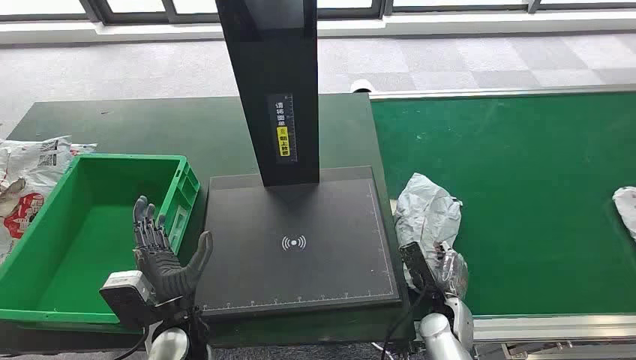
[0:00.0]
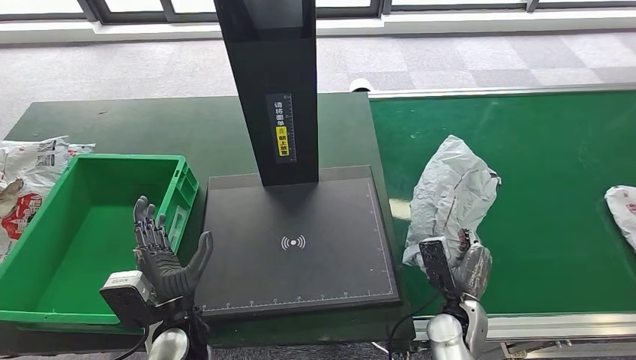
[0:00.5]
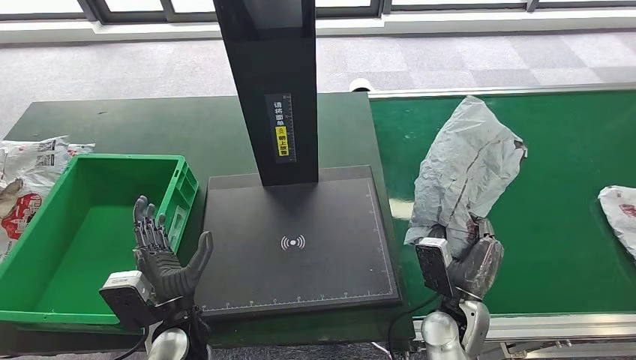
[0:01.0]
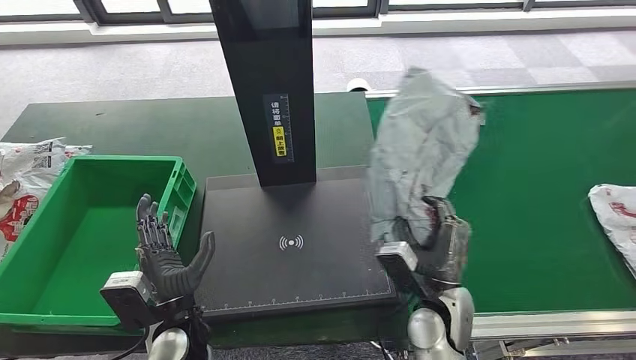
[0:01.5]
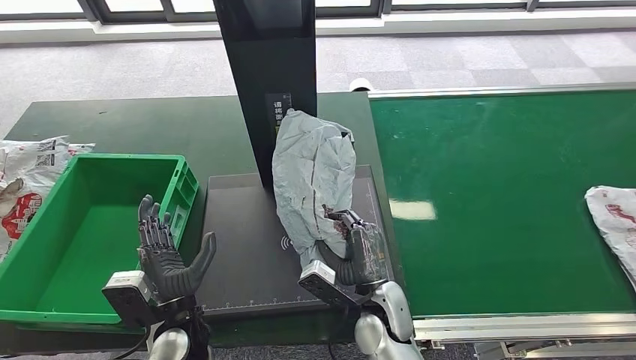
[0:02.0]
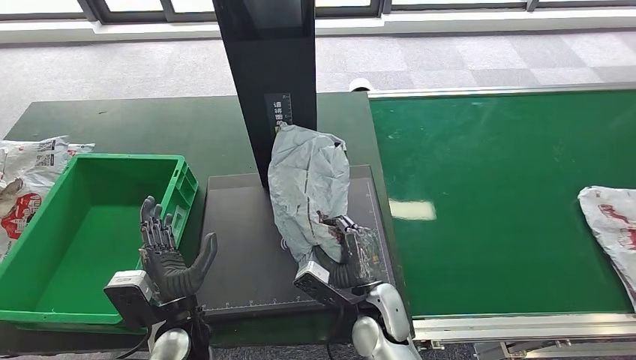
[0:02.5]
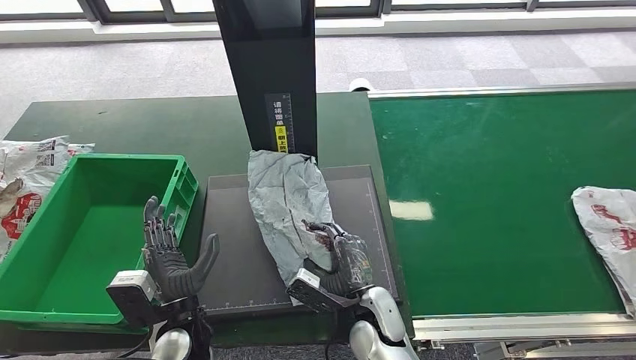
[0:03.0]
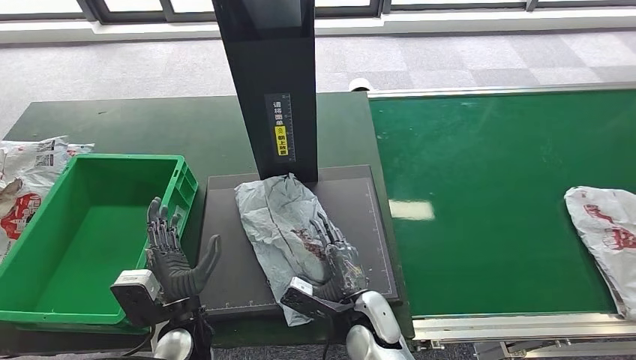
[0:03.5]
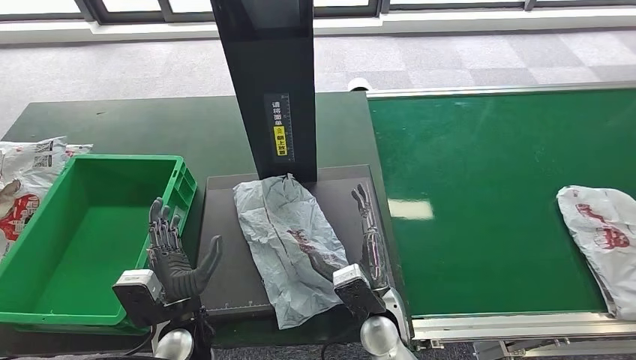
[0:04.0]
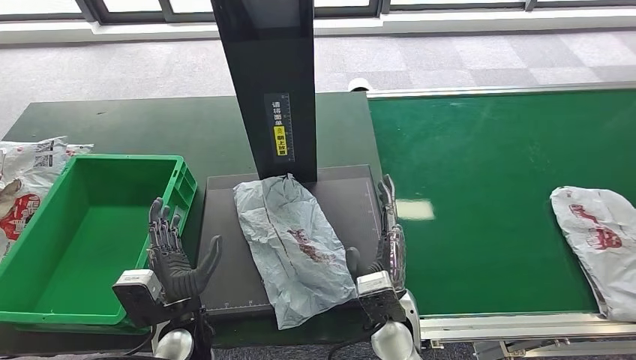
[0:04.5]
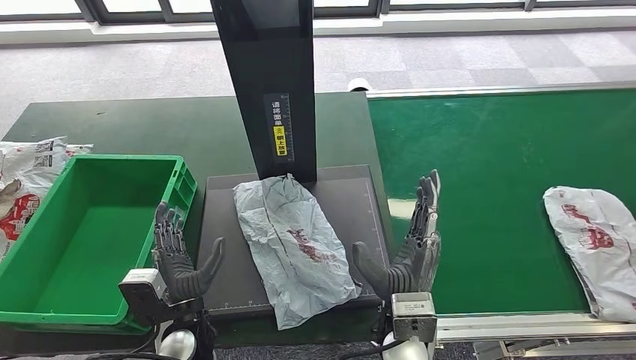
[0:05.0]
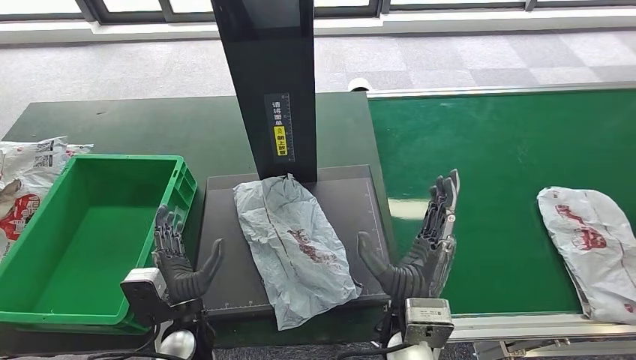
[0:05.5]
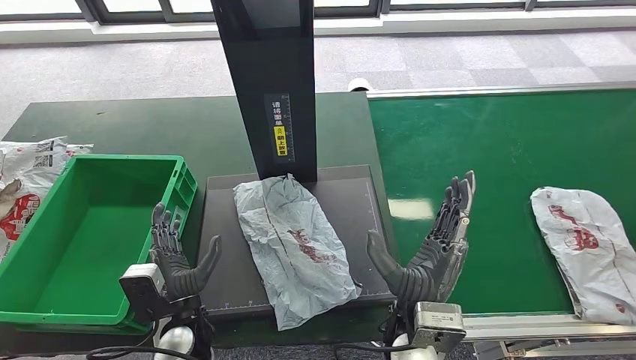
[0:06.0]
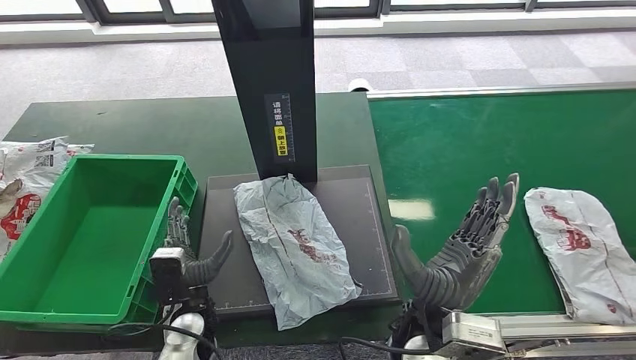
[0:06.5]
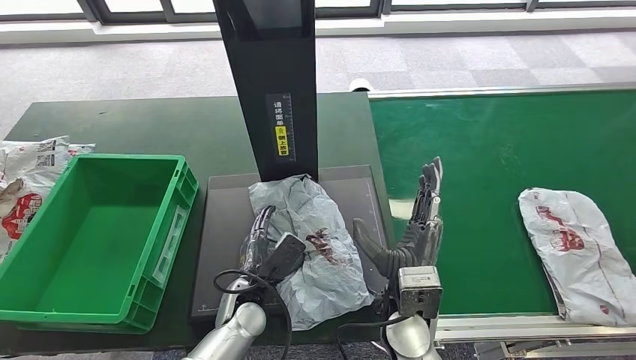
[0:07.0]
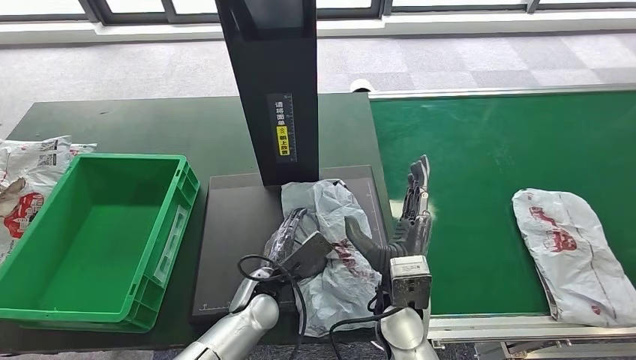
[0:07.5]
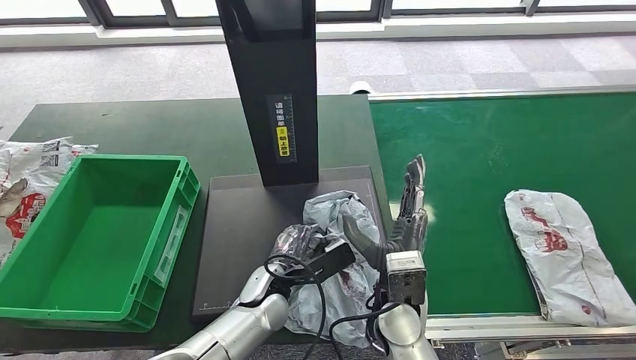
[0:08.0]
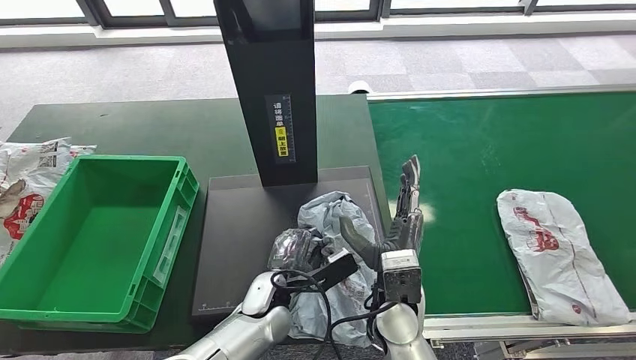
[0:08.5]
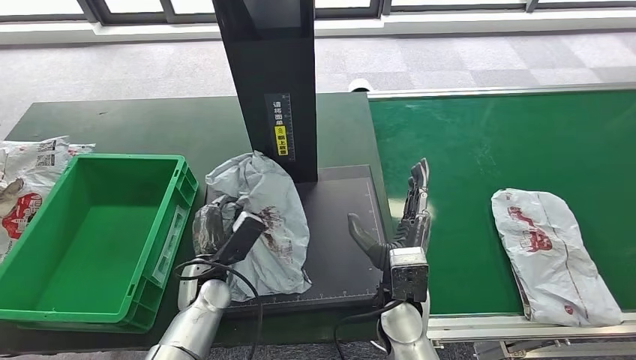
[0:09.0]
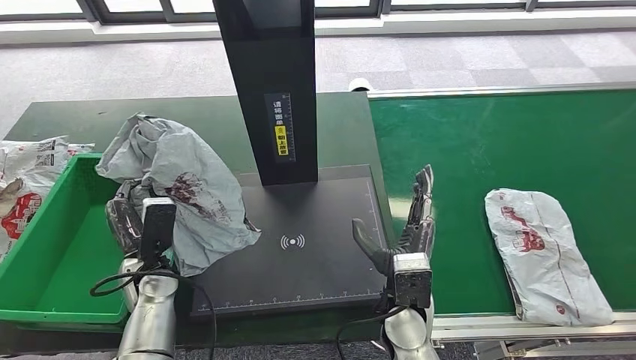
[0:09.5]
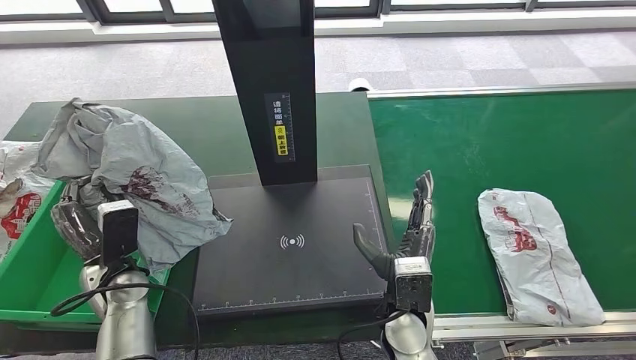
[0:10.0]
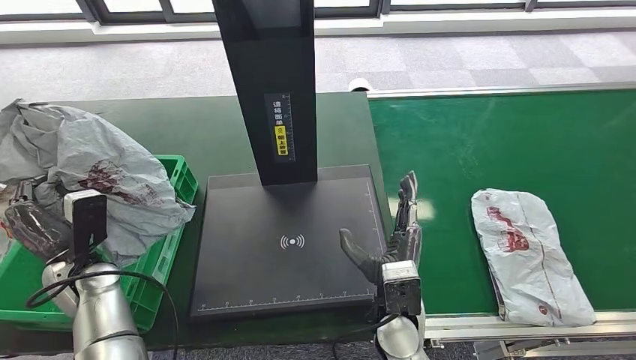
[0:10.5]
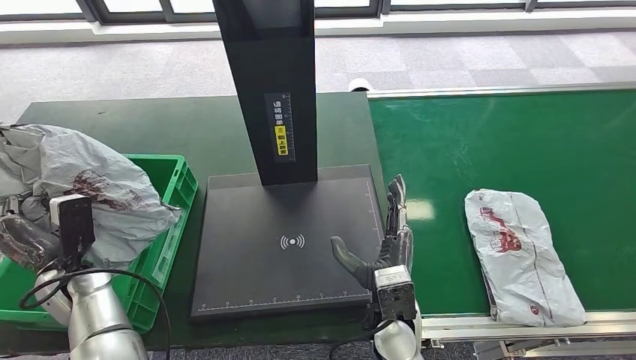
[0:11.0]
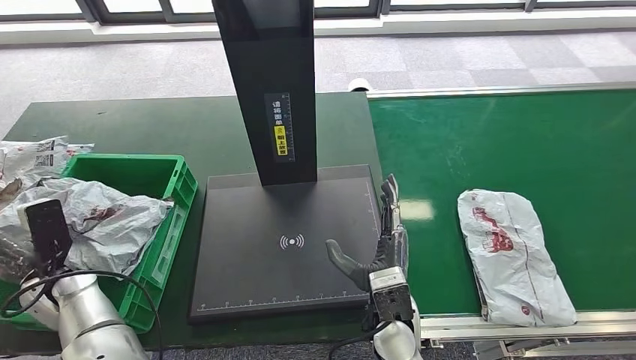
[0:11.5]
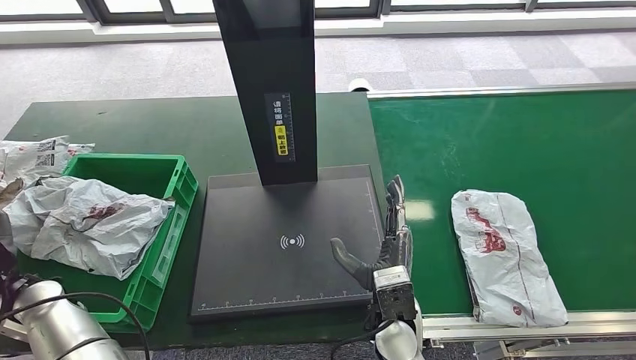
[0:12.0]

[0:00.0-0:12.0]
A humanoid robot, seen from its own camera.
Step, 0:00.0 to 0:01.0: Take the parcel off the conveyor belt.
Step, 0:02.0 to 0:04.0: Place the parcel onto the inbound machine.
Step, 0:04.5 to 0:09.0: Pick up the parcel from the inbound machine.
0:04.0 to 0:06.0: The right hand is displaced upward by approximately 10 cm.

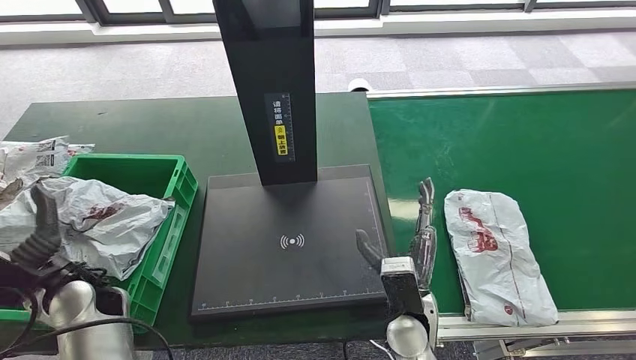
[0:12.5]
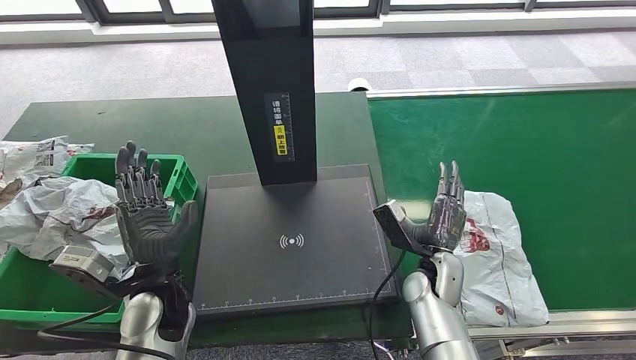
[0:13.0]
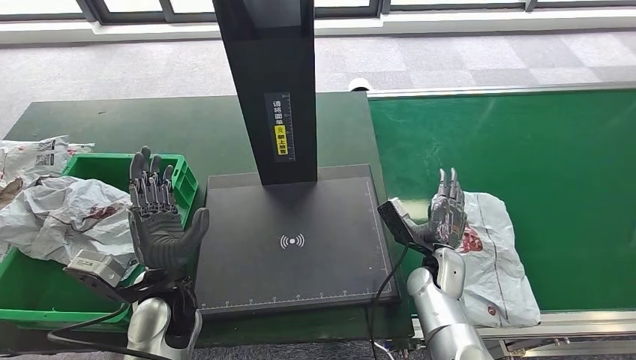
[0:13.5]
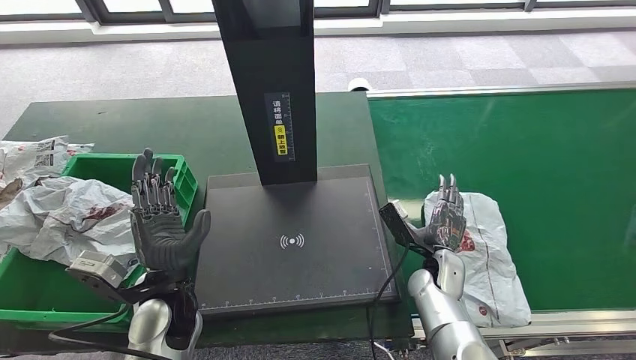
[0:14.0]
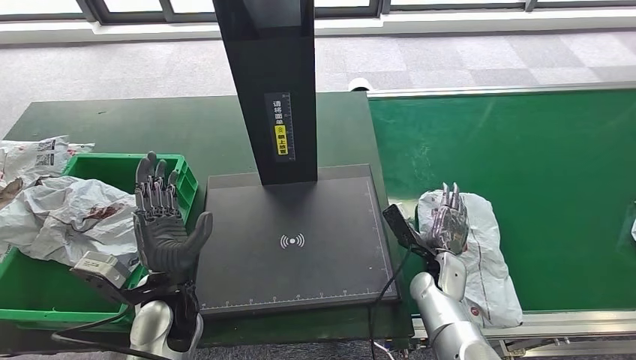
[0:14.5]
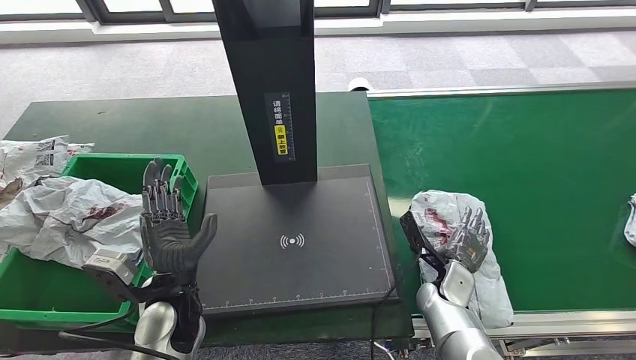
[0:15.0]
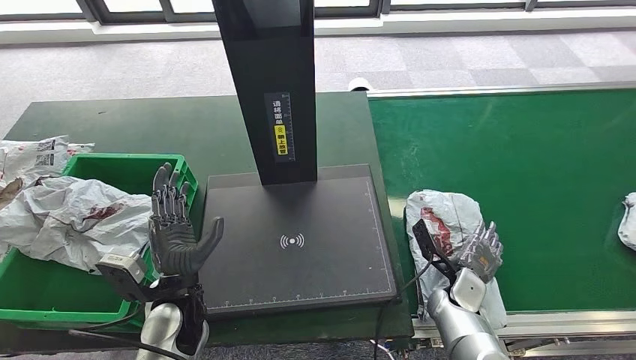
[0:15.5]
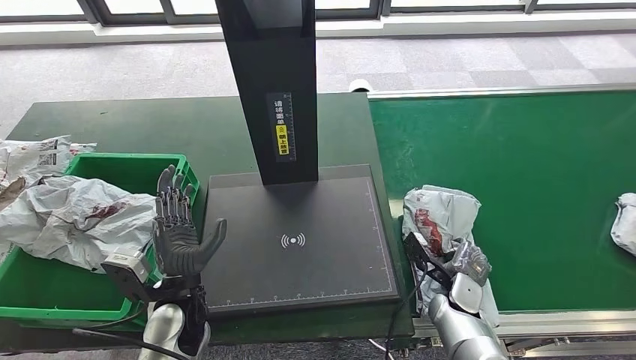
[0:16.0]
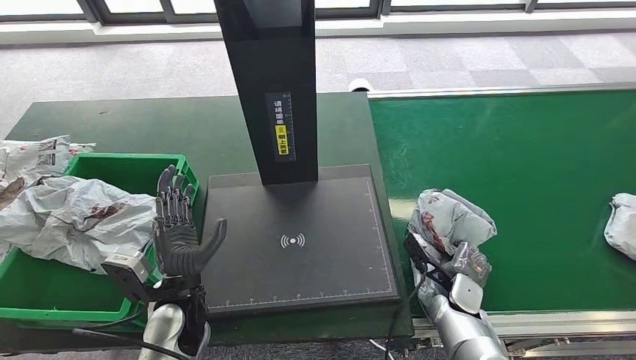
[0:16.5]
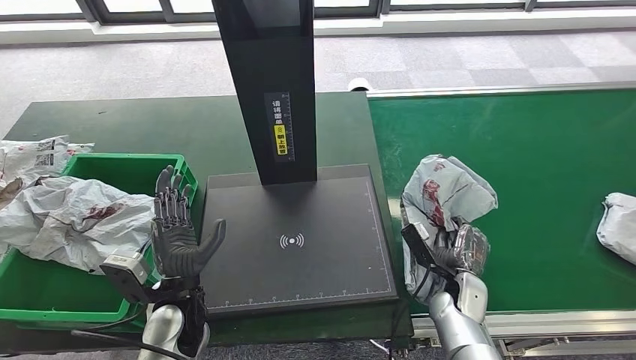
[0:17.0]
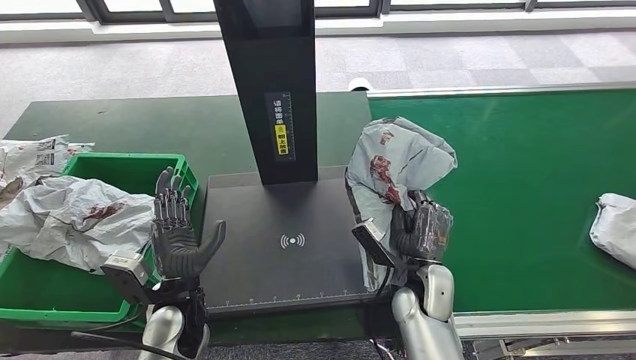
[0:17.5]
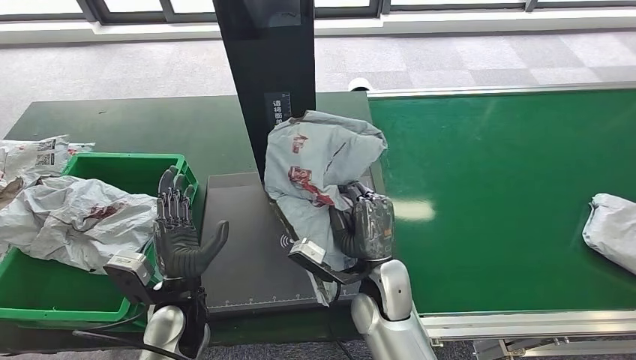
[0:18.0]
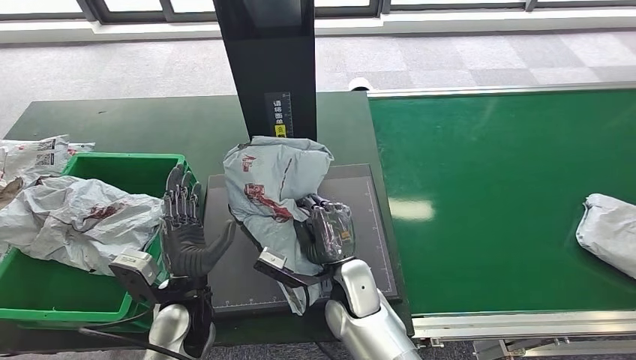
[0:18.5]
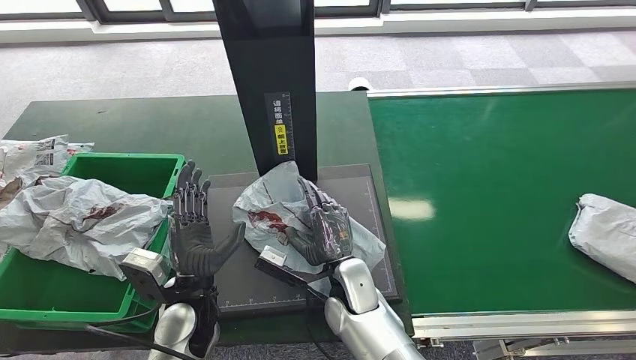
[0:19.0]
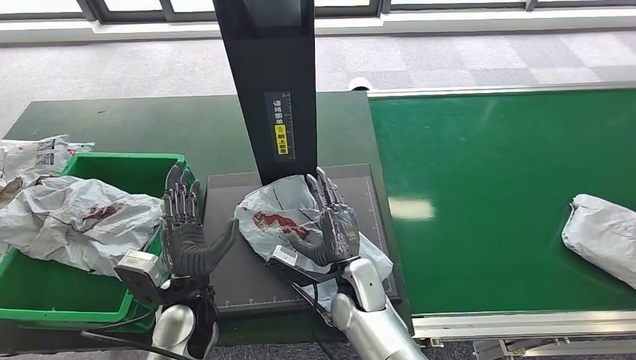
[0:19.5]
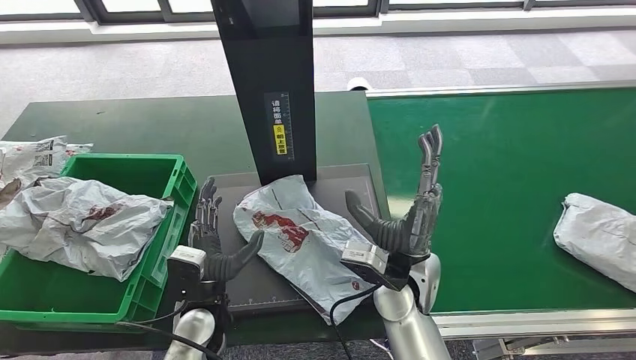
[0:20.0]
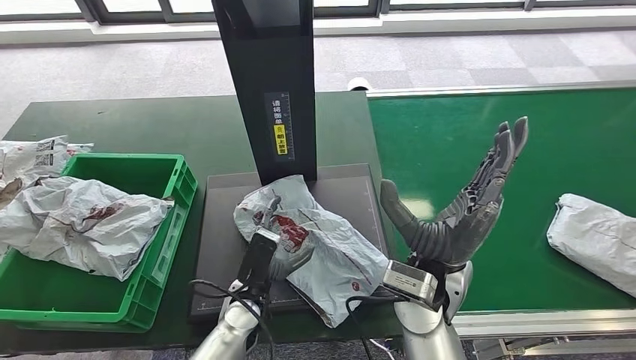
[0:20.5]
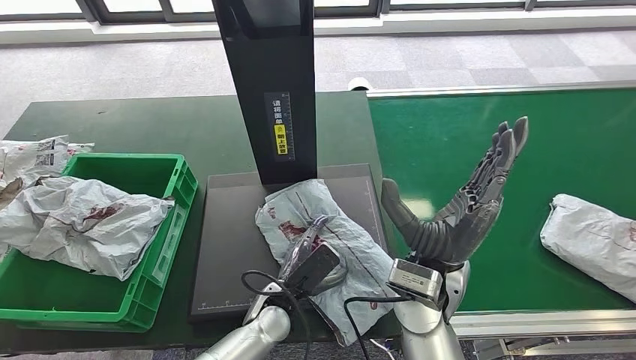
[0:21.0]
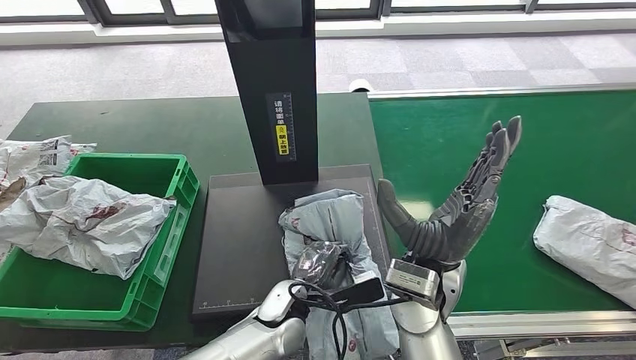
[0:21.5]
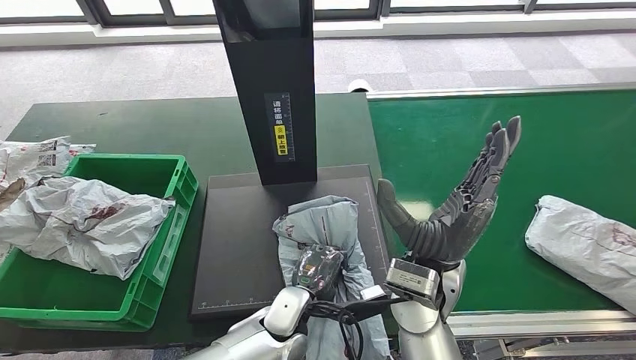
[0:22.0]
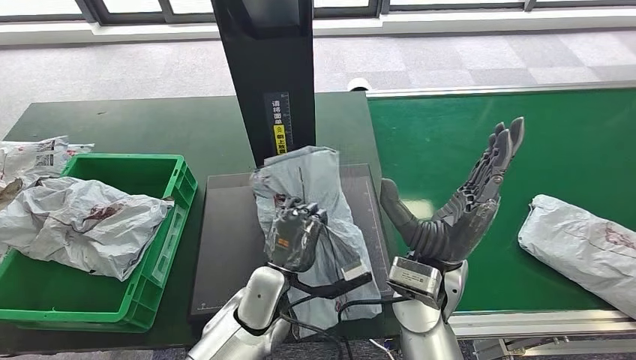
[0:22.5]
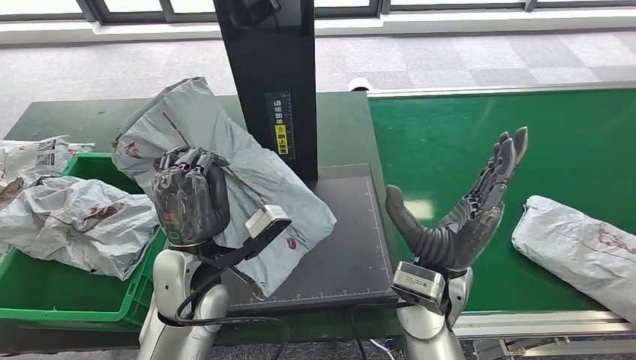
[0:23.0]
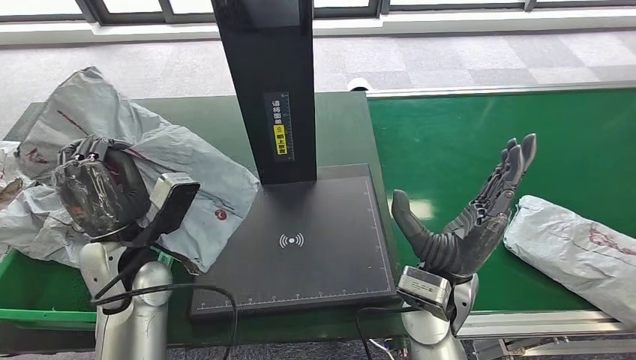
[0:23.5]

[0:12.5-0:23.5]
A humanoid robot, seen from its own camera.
Step, 0:13.5 to 0:17.0: Pick up the parcel from the conveyor belt.
Step, 0:17.5 to 0:20.5: Place the parcel onto the inbound machine.
Step, 0:21.0 to 0:23.0: Pick up the parcel from the inbound machine.
0:12.5 to 0:14.5: The right hand shifts about 10 cm forward, to the right and downward. Meanwhile the left hand shifts roughly 15 cm to the right.
0:14.5 to 0:16.0: The right hand ends up roughly 5 cm from where it was.
